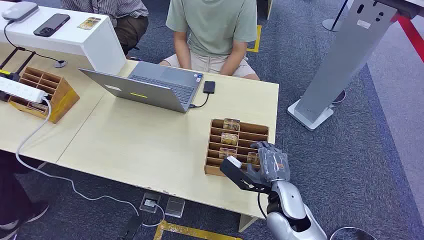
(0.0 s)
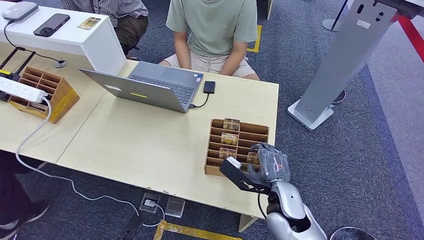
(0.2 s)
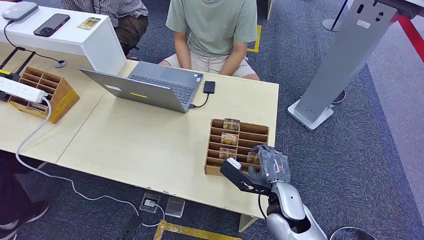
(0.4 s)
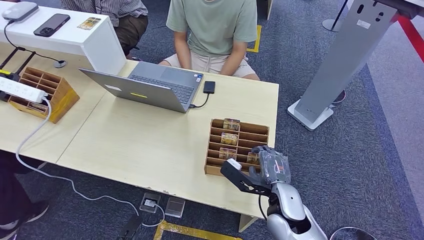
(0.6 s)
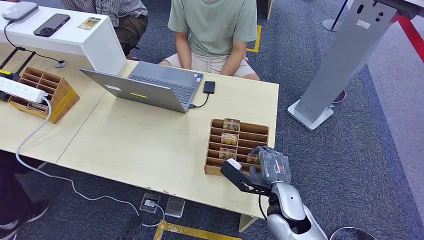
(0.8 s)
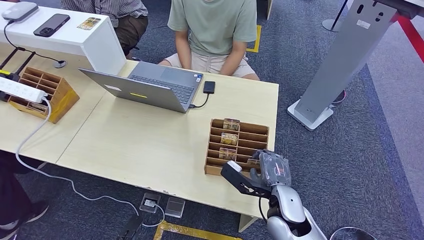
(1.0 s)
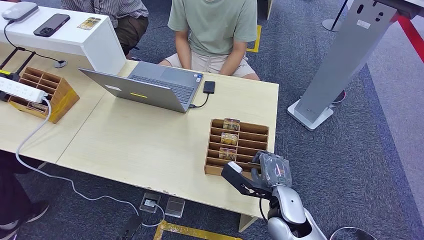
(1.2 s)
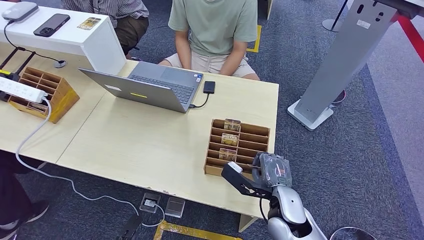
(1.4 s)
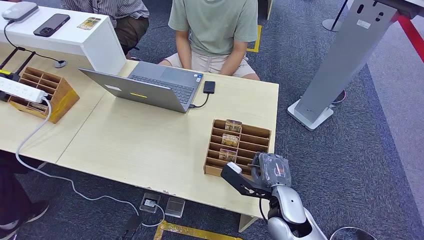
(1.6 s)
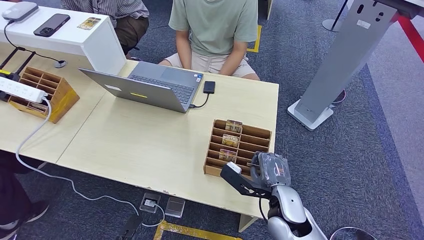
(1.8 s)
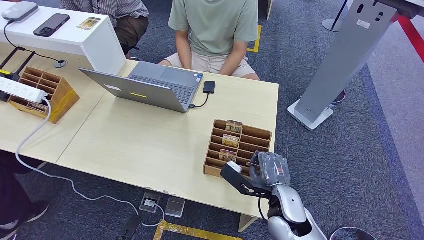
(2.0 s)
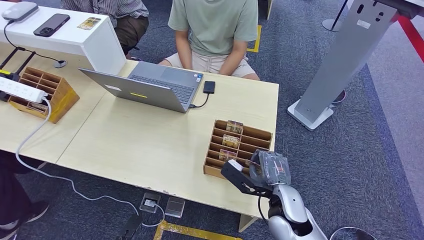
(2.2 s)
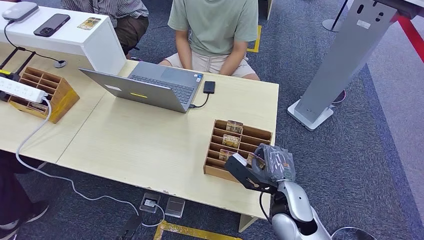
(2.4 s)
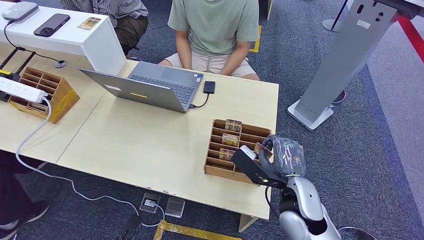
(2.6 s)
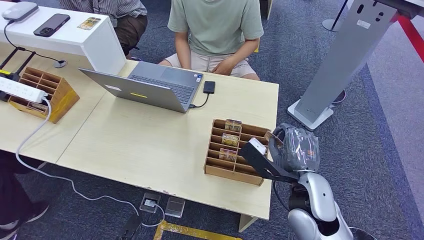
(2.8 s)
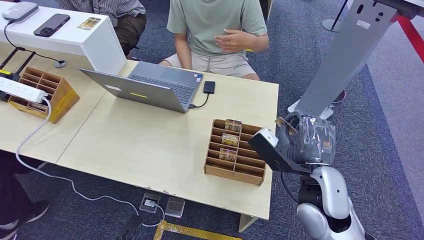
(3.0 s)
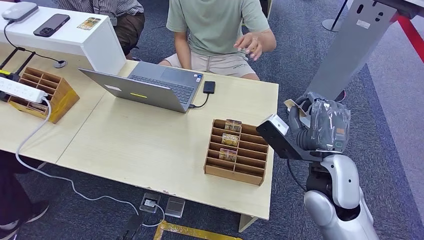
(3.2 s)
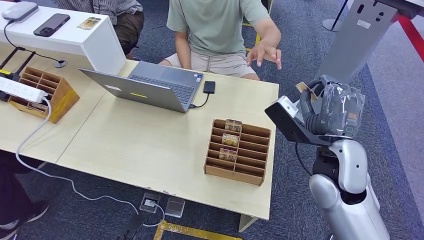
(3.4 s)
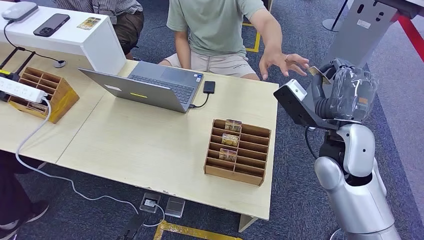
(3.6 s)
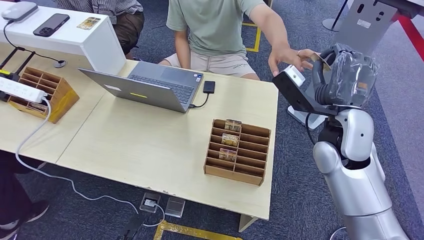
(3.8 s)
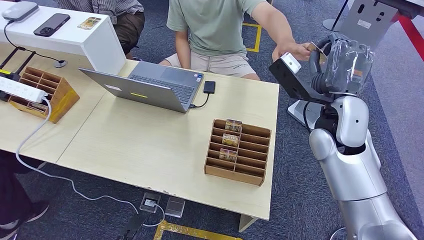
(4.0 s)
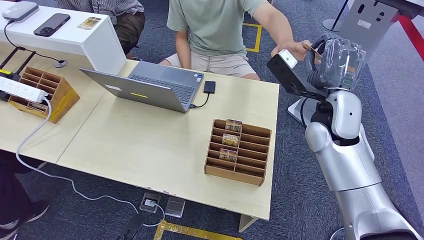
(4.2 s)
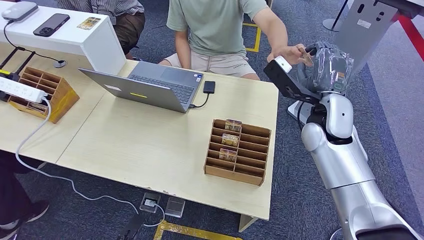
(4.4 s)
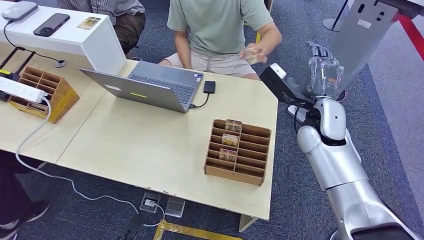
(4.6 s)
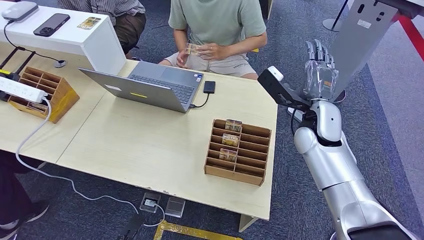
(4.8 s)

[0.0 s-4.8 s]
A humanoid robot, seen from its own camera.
Step, 0.0 to 2.6 s: Pick up the key card from the card box.
Step, 4.0 to 4.8 s: Hand the key card to the target.
1.6 to 3.2 s: The right hand moves upward, roughly 15 cm.
3.2 to 4.8 s: The right hand moves forward, about 15 cm.
